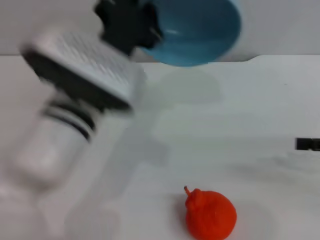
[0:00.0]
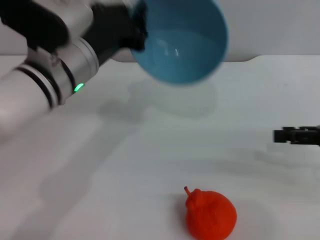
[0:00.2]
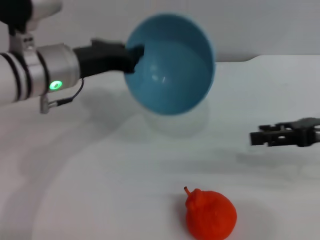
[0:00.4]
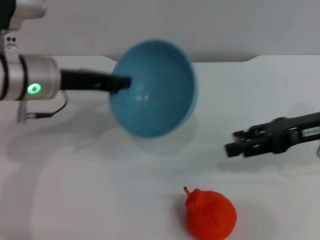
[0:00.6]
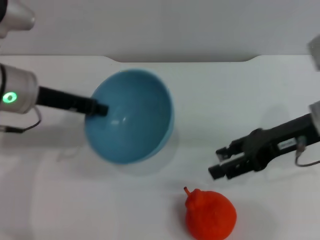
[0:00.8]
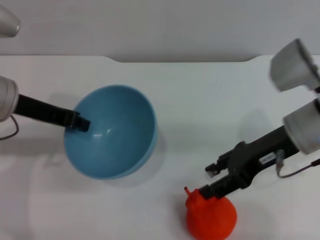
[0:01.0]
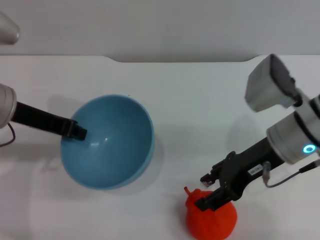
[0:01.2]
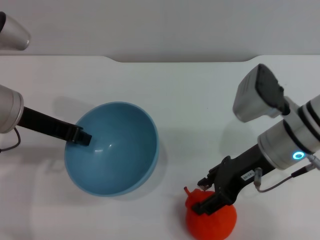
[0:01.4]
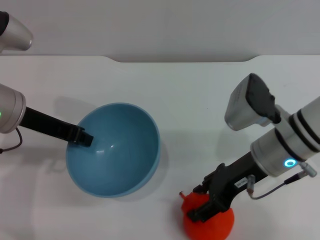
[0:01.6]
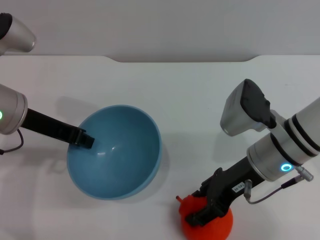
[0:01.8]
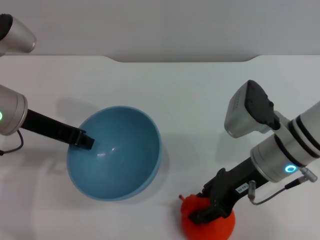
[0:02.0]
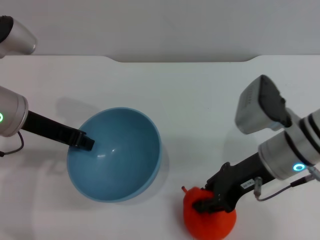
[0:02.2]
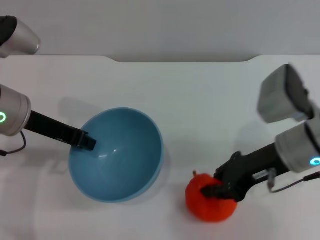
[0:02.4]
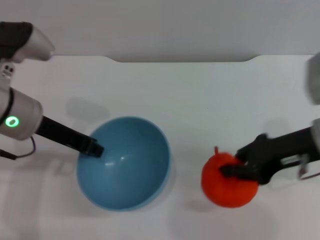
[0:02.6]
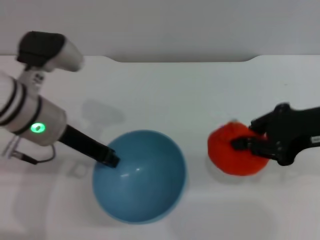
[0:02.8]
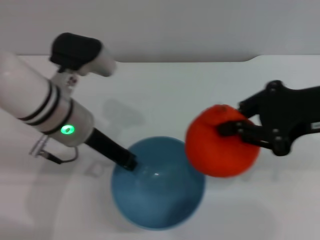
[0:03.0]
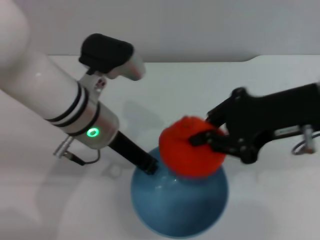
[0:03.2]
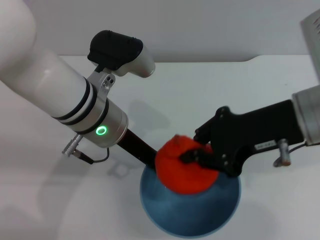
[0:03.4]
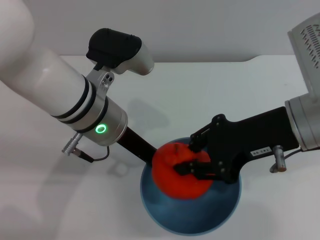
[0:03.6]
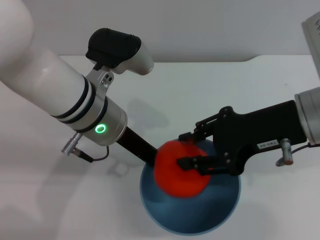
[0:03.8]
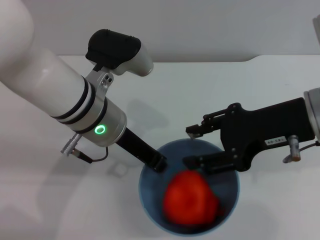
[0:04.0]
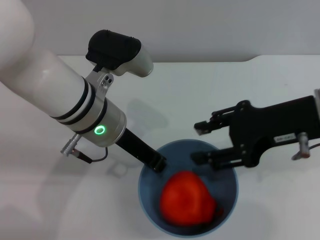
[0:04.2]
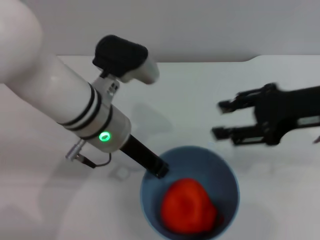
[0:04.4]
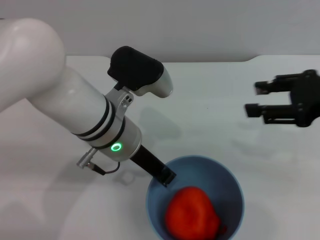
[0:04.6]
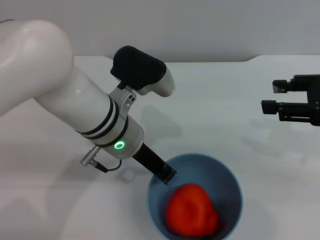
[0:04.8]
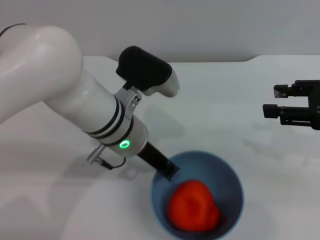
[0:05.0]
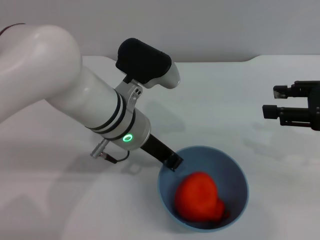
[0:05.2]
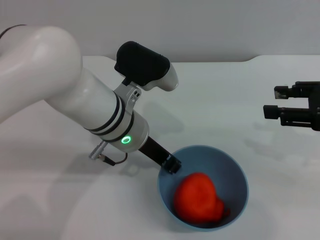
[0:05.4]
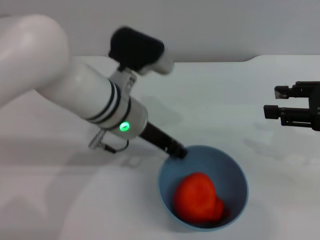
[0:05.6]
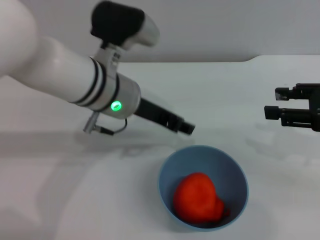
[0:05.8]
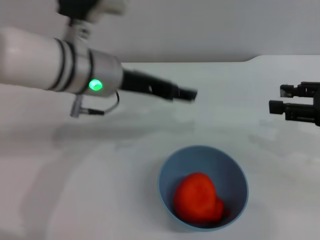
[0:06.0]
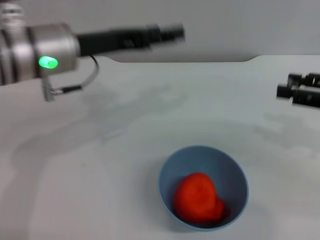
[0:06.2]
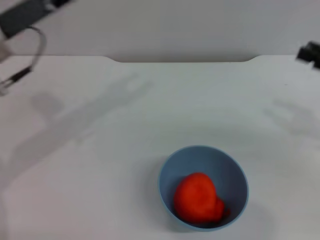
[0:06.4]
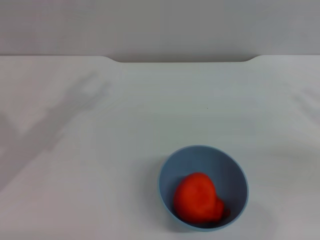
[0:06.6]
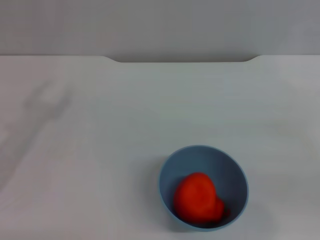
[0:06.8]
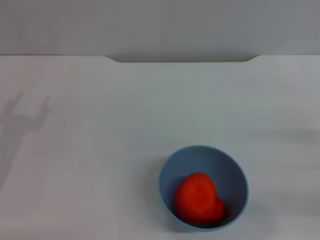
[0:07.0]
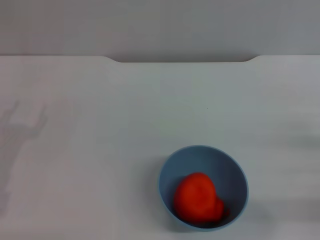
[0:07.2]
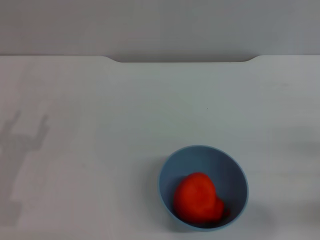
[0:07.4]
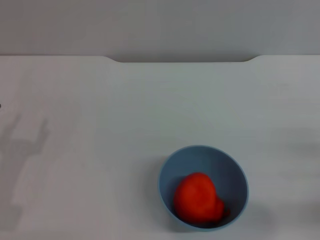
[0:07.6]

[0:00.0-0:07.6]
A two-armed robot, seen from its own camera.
Task of the whole recording: put the orange into the blue bowl and pour it out repeatedly.
Step, 0:00.0 to 0:02.6: Pick up the orange with the right gripper.
Step, 0:02.8 to 0:04.4: Place the orange into the bowl.
Step, 0:04.6 to 0:05.6: Place the bowl on the table.
0:00.0 to 0:01.6: The right gripper is displaced to the left by roughly 20 cm, while the left gripper heads to the left, covering some 15 cm.
0:01.6 to 0:03.0: The right gripper moves upward and to the right, approximately 15 cm, and closes its fingers. Meanwhile the left gripper travels to the right by about 10 cm.
0:03.0 to 0:04.6: The right gripper shifts by some 5 cm, and opens up, while the left gripper is displaced to the right by about 5 cm.
0:04.6 to 0:06.0: The left gripper moves some 5 cm, and opens its fingers. The right gripper moves about 5 cm.
0:06.0 to 0:07.6: The right gripper moves downward and backward, roughly 15 cm. Meanwhile the left gripper shifts some 30 cm to the left, downward and backward.
